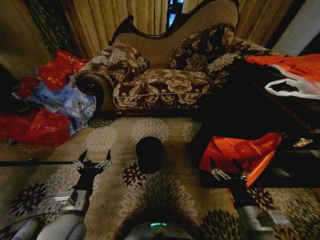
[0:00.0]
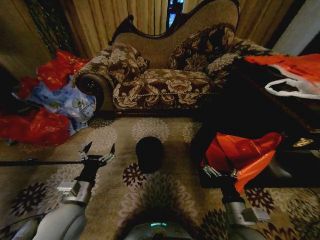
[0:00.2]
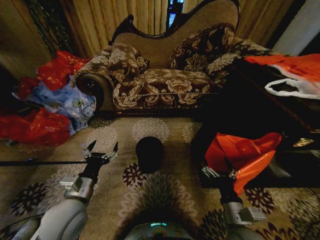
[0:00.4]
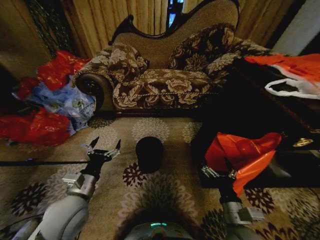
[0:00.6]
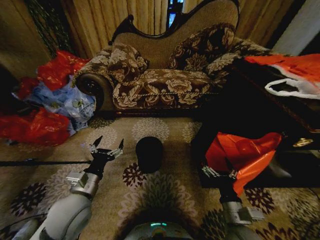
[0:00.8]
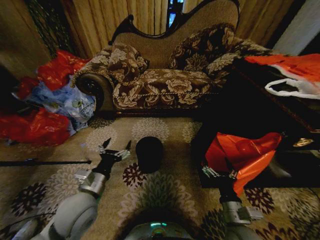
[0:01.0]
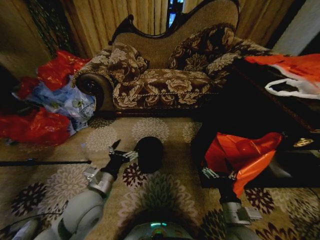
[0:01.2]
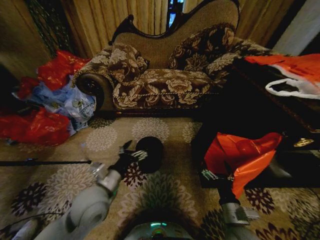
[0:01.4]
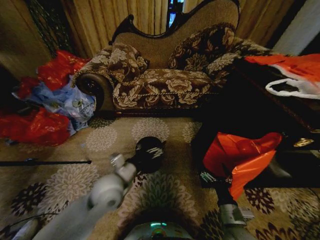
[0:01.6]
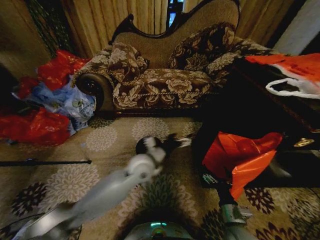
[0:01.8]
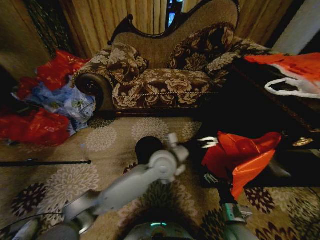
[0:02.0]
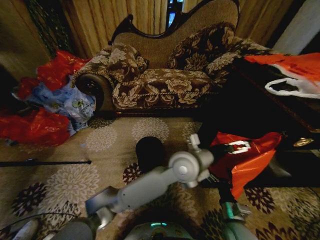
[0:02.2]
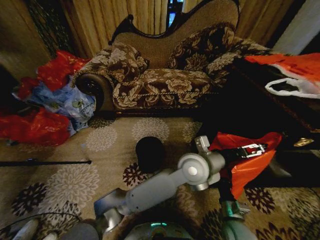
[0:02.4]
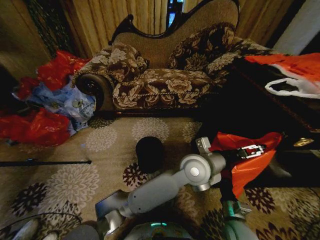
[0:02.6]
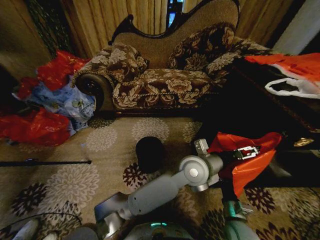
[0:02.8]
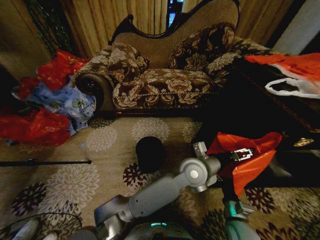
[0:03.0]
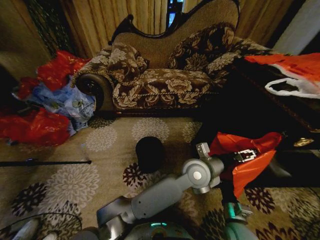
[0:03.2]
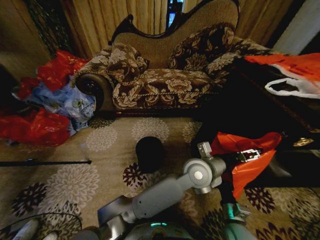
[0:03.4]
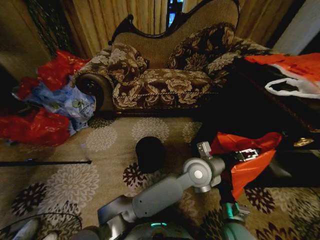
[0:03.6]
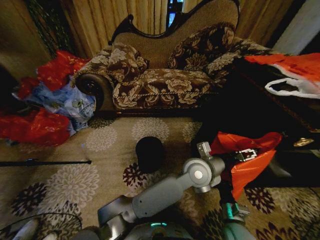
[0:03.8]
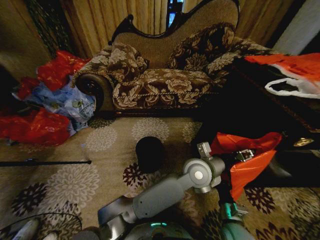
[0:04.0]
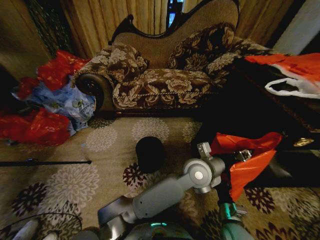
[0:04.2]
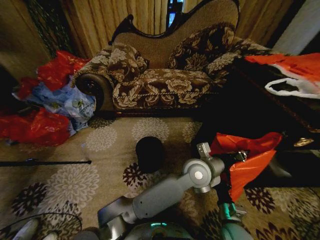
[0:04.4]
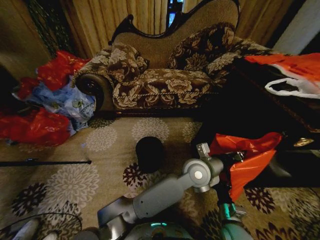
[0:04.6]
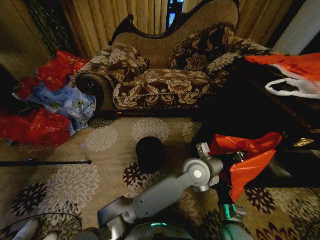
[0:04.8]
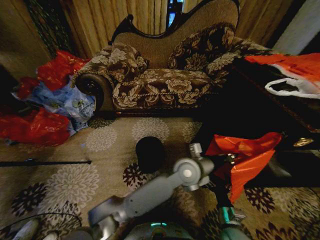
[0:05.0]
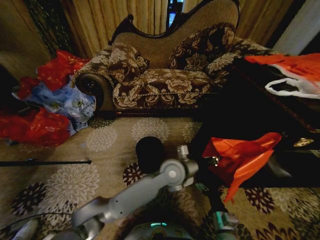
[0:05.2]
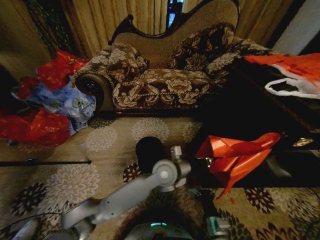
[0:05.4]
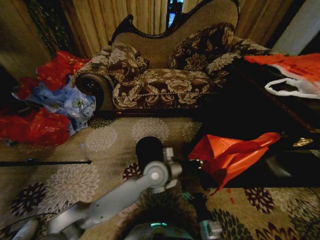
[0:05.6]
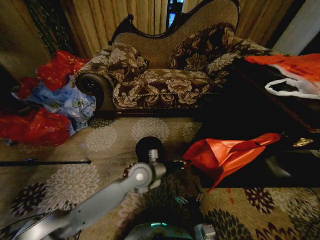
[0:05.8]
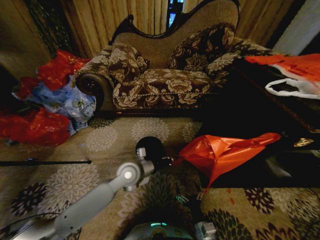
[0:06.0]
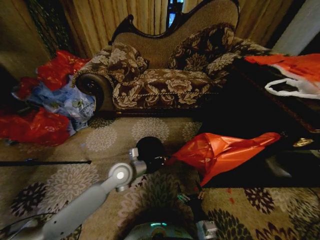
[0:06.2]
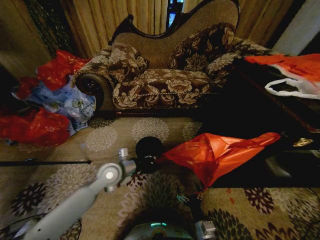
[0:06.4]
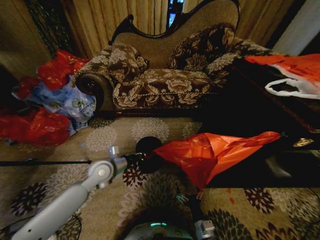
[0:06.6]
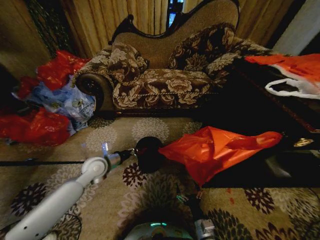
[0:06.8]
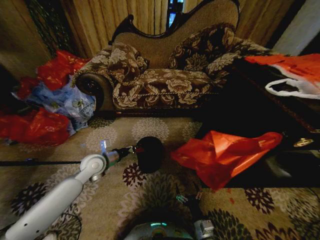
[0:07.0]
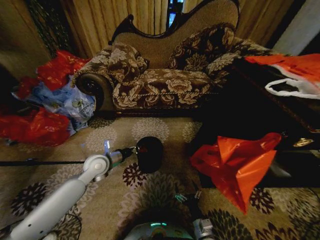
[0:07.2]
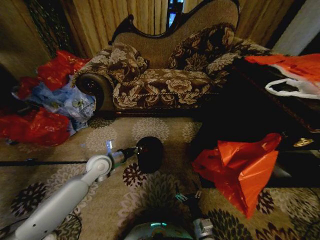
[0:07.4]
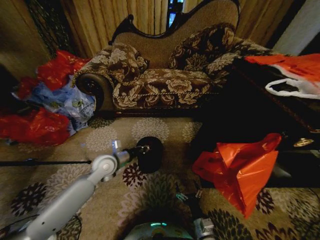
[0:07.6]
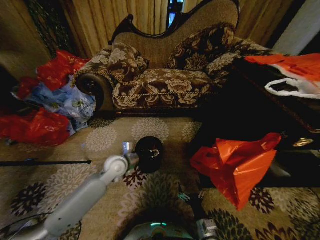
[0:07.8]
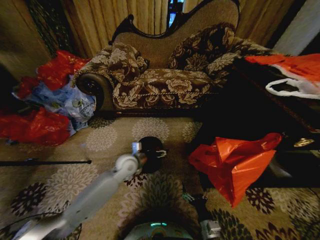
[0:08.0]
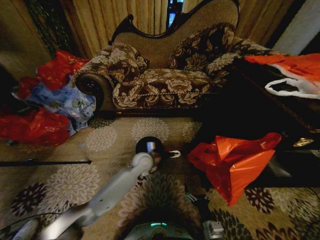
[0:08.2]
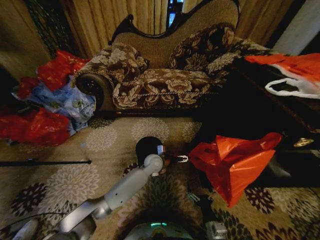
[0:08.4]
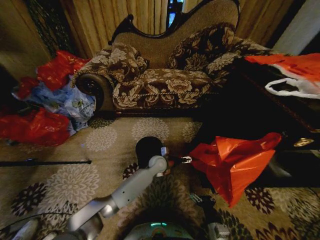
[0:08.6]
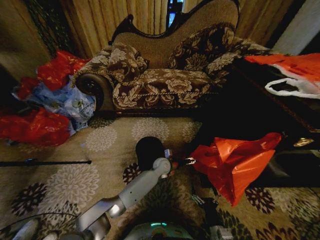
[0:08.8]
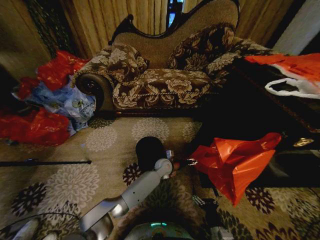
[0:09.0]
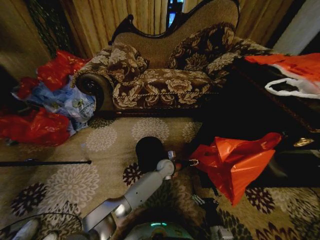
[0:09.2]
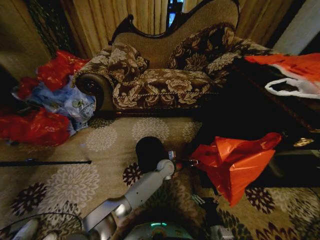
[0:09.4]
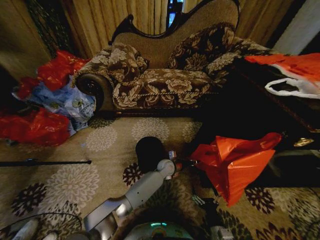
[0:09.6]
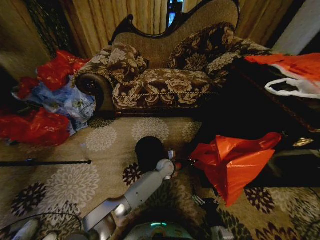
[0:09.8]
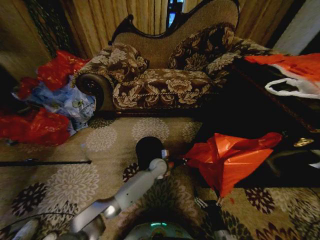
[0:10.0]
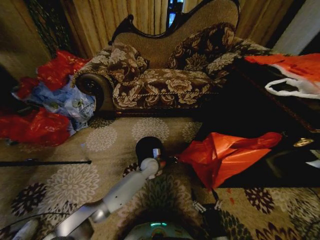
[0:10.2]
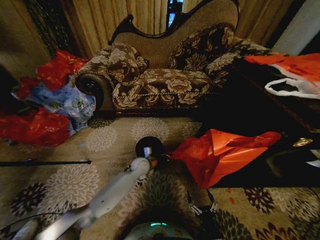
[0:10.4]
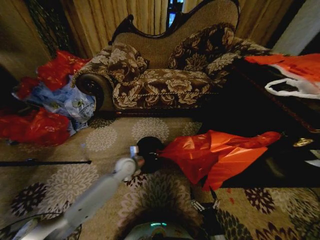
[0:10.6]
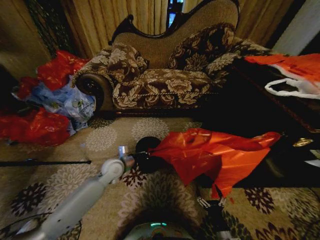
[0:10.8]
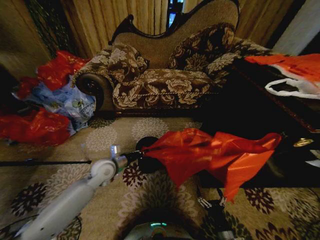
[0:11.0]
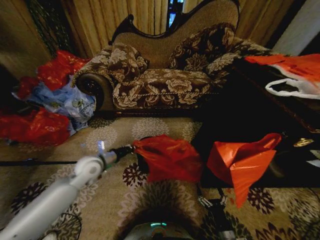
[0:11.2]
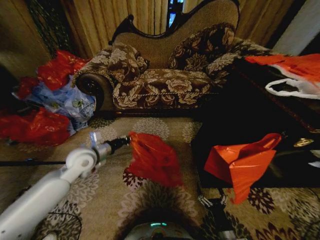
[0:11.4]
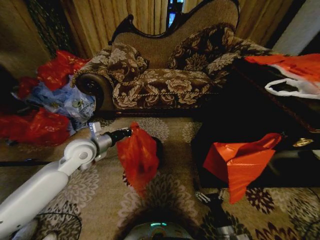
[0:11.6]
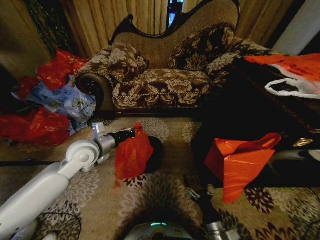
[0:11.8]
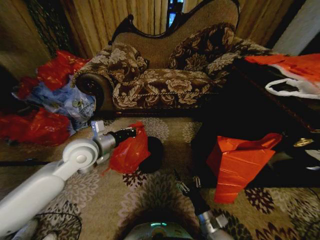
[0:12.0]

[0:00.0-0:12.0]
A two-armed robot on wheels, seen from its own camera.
Task of the whole recording: Place a garbage bag over the trash bin.
0:01.6 to 0:03.0: The left gripper travels to the right by approximately 25 cm, while the right gripper ends up about 5 cm from where it was.
0:03.0 to 0:04.4: The left gripper closes.
0:04.4 to 0:06.0: The right gripper heads to the left, downward and backward, covering roughly 10 cm; the left gripper goes roughly 25 cm to the left.
0:06.0 to 0:07.6: The left gripper goes roughly 10 cm to the left.
0:07.6 to 0:09.0: The right gripper shifts by some 5 cm. Meanwhile the left gripper travels to the right and downward by some 30 cm, and opens its fingers.
0:09.0 to 0:10.4: The left gripper moves to the left, approximately 15 cm, and closes.
0:10.4 to 0:12.0: The right gripper shifts roughly 10 cm forward and upward; the left gripper is displaced upward, to the left and backward by roughly 30 cm.

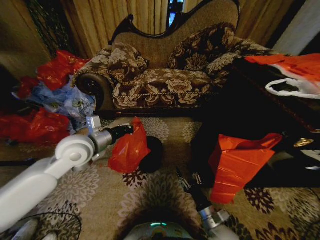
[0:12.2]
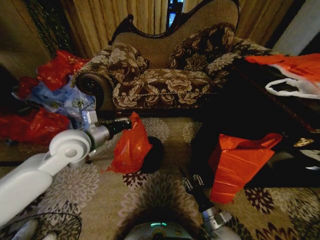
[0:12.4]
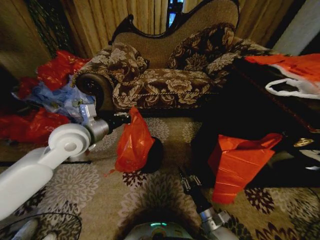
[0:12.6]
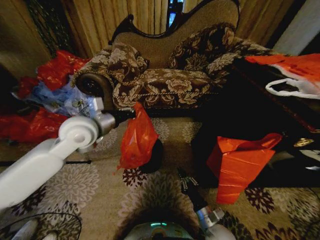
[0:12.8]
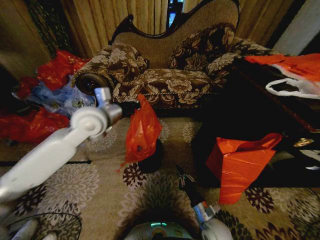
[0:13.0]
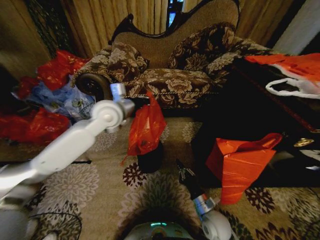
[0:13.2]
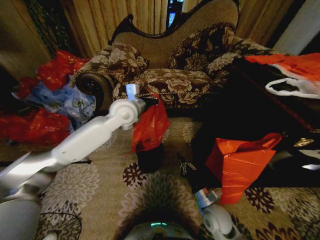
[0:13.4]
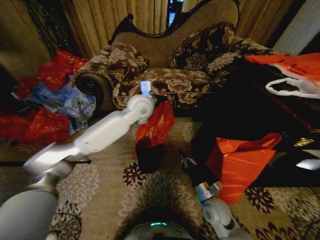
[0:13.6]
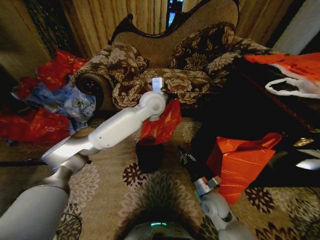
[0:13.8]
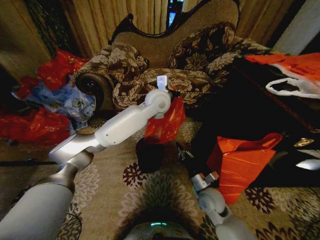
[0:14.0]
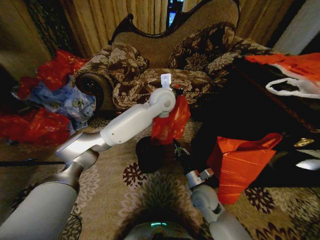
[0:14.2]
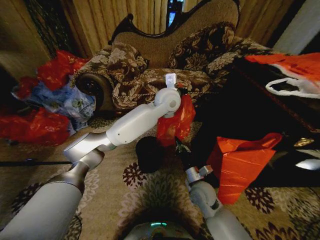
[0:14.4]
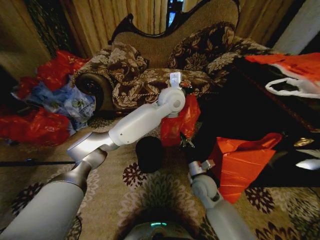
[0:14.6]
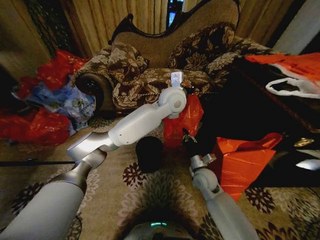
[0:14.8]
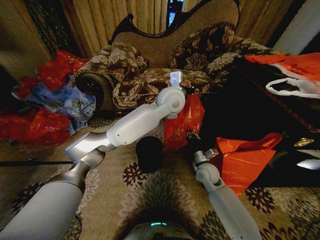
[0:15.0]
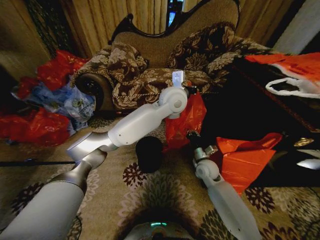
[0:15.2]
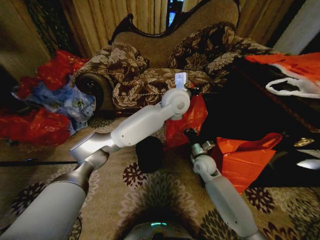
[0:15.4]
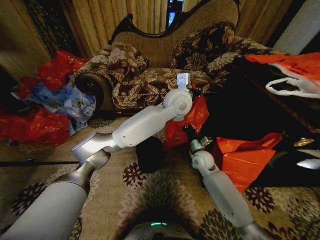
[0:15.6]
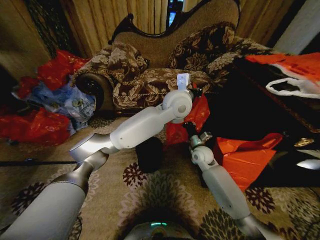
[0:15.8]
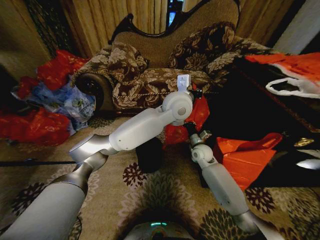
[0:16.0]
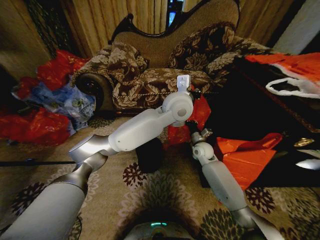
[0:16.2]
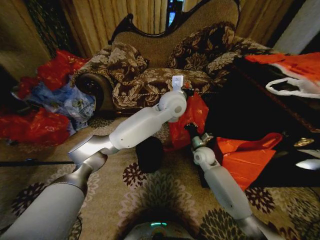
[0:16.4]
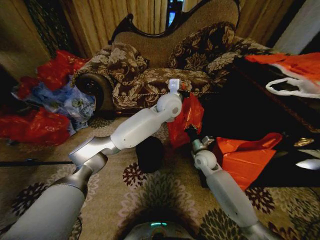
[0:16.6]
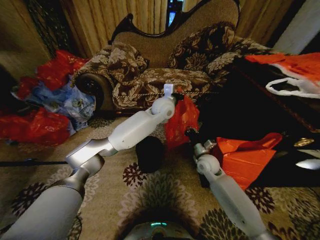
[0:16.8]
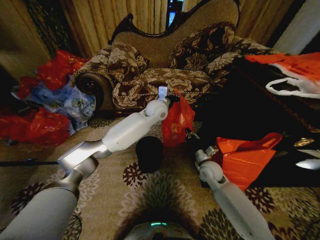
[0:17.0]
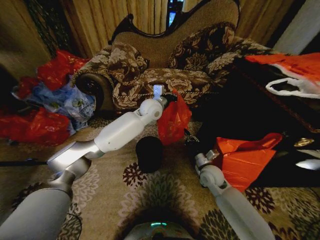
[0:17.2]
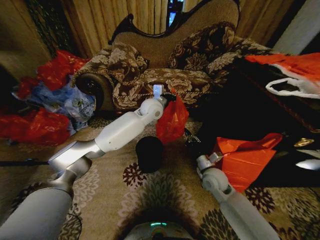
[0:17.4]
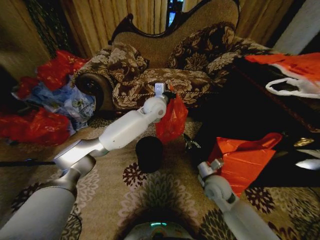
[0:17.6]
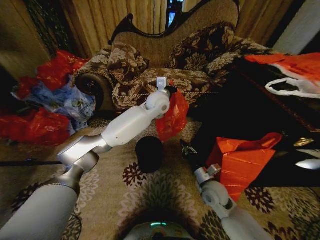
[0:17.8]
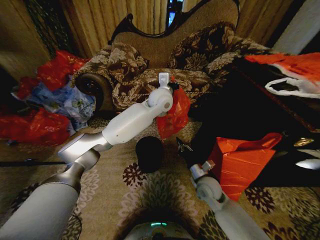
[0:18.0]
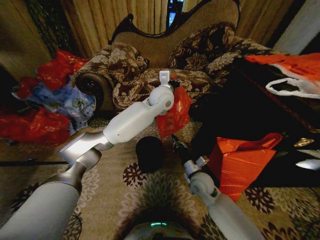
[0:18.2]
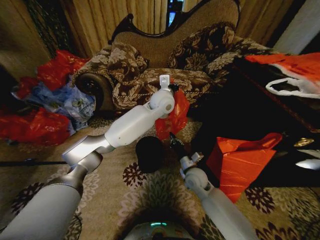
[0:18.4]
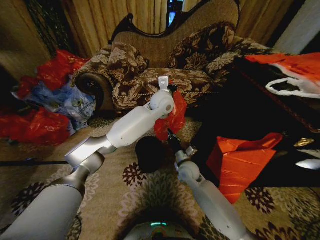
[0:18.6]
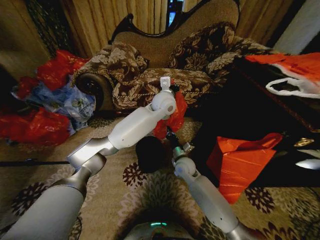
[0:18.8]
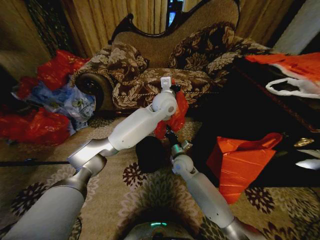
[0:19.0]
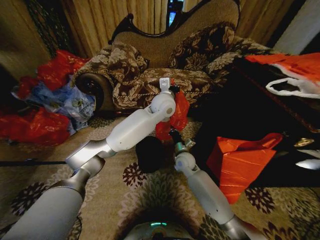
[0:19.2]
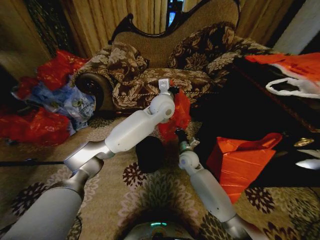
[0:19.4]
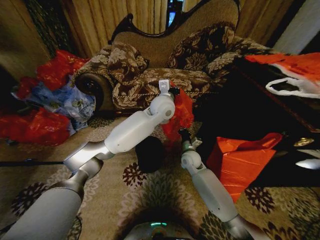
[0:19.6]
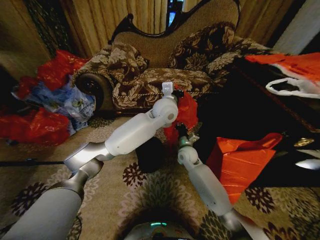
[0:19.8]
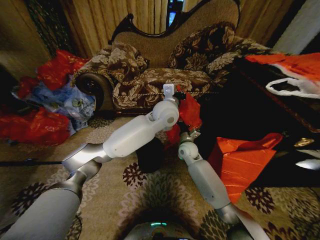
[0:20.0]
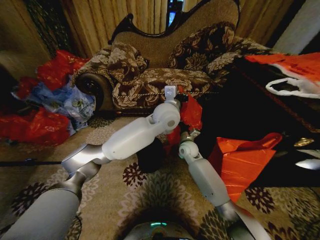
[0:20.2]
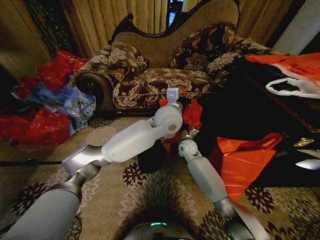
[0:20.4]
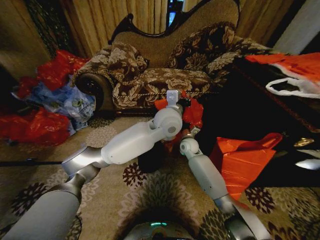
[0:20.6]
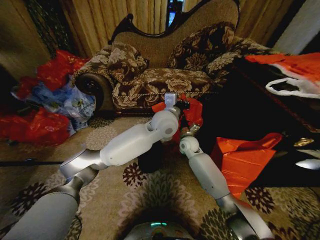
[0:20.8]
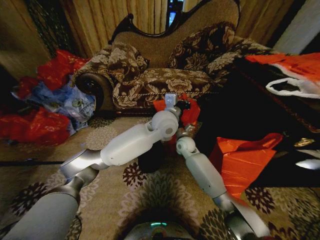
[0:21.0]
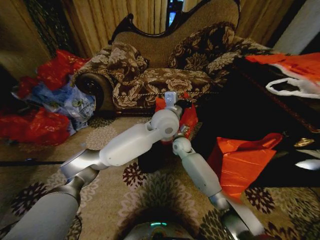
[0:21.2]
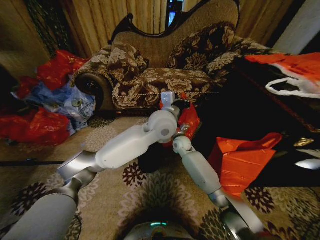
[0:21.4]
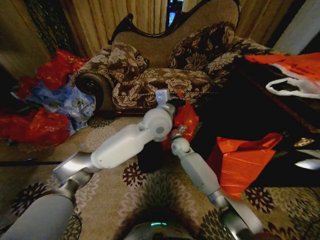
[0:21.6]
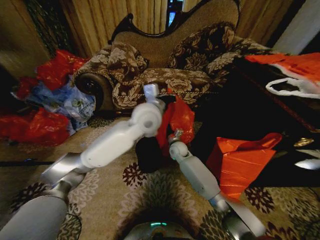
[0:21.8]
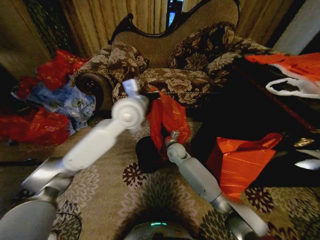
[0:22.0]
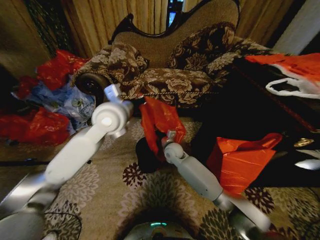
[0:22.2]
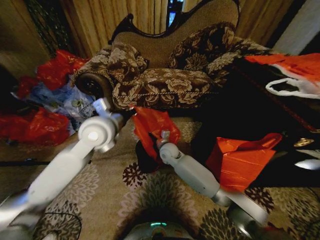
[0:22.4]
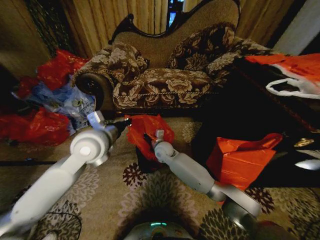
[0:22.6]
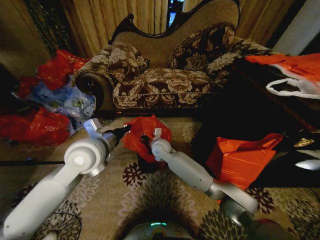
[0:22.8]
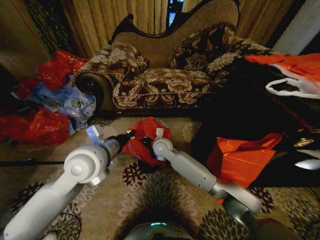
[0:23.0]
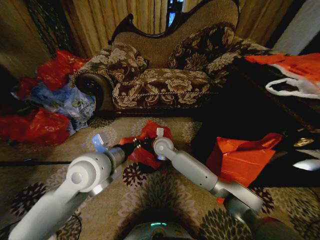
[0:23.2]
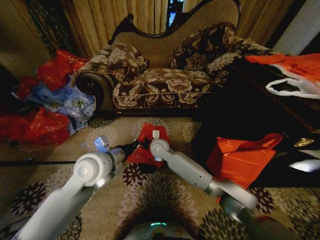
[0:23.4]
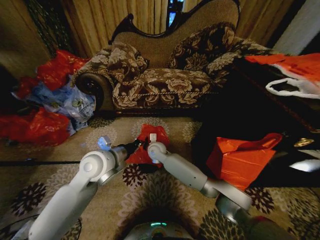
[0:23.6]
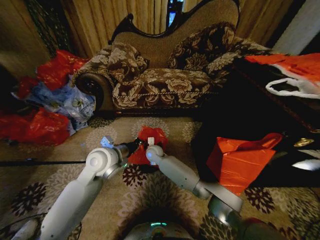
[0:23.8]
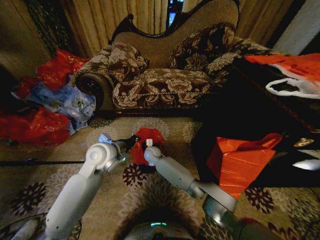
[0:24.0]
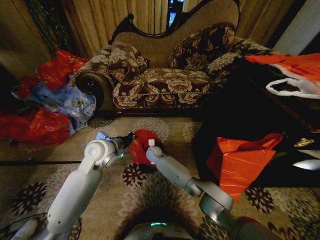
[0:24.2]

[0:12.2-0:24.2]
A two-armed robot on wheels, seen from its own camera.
Task of the whole recording: Place a garbage bag over the trash bin.
0:12.2 to 0:13.8: The right gripper goes roughly 10 cm forward, and closes up. The left gripper moves to the right and forward, approximately 25 cm.
0:13.8 to 0:15.2: The right gripper travels forward by about 15 cm; the left gripper travels to the right by roughly 10 cm.
0:16.6 to 0:18.2: The right gripper shifts some 10 cm backward.
0:18.2 to 0:19.8: The right gripper shifts roughly 10 cm forward.
0:19.8 to 0:21.2: The right gripper moves forward, about 5 cm; the left gripper moves backward, roughly 5 cm.
0:21.2 to 0:22.6: The left gripper is displaced to the left and backward by approximately 25 cm; the right gripper travels to the left by roughly 10 cm.
0:22.6 to 0:24.2: Both grippers travel together downward, some 10 cm.
